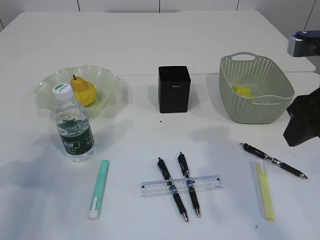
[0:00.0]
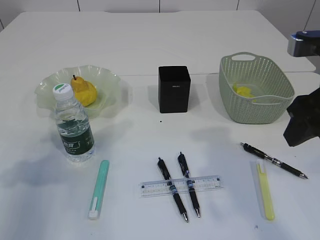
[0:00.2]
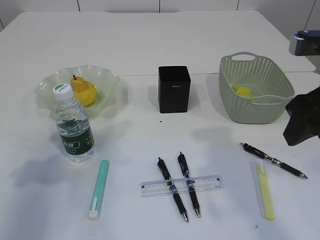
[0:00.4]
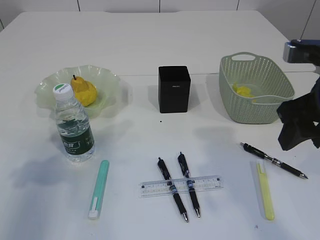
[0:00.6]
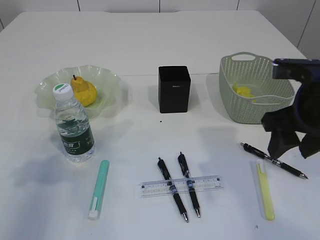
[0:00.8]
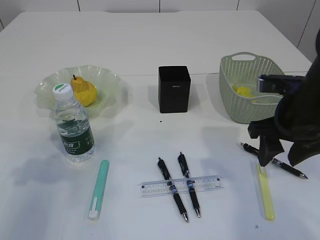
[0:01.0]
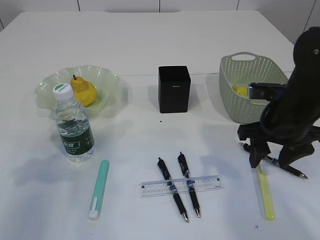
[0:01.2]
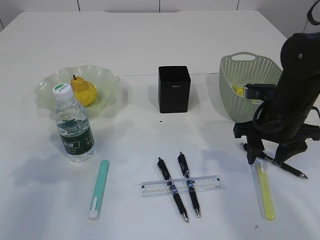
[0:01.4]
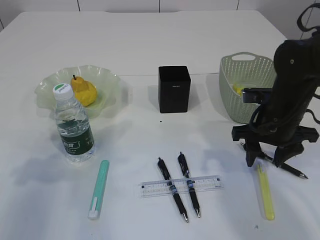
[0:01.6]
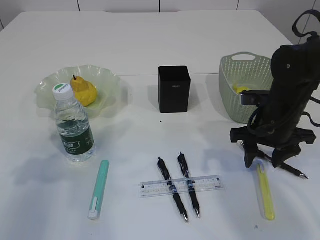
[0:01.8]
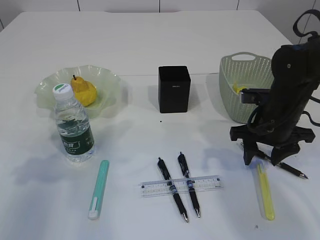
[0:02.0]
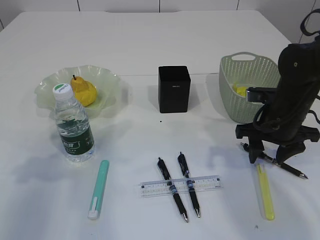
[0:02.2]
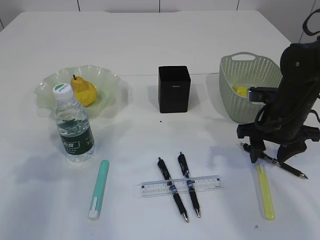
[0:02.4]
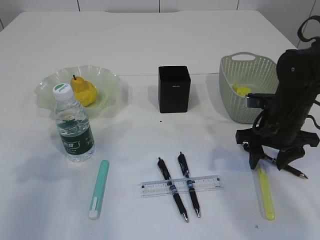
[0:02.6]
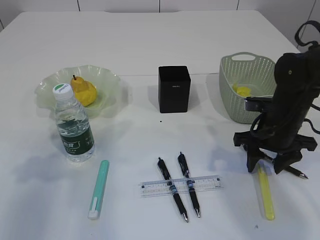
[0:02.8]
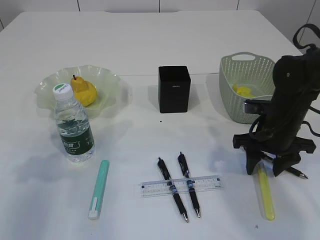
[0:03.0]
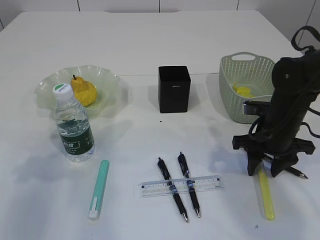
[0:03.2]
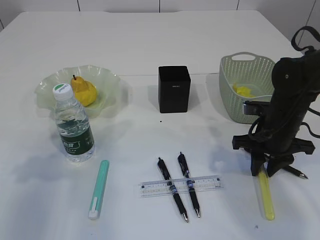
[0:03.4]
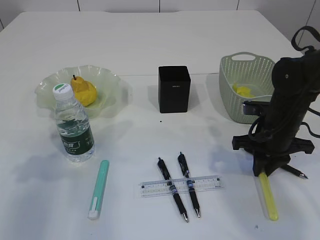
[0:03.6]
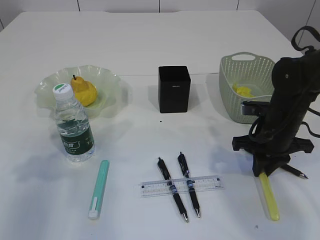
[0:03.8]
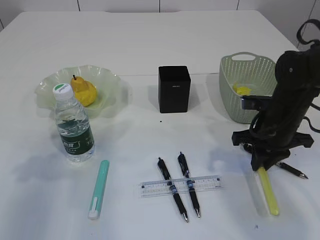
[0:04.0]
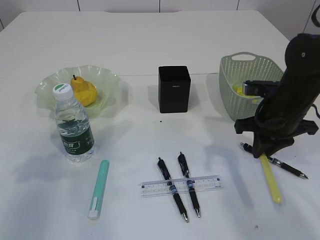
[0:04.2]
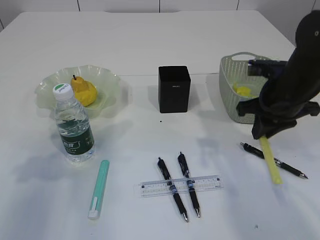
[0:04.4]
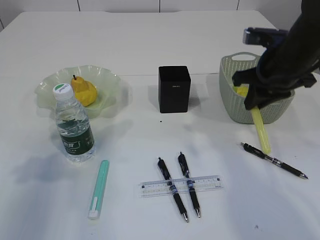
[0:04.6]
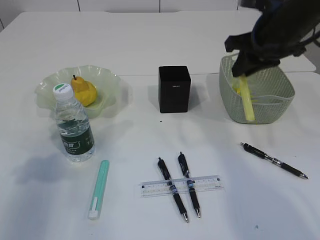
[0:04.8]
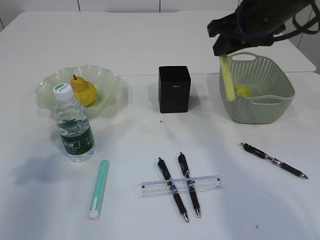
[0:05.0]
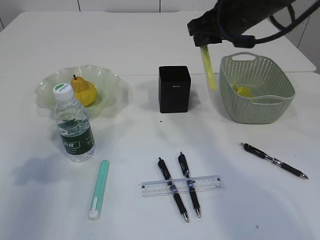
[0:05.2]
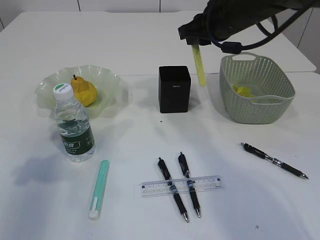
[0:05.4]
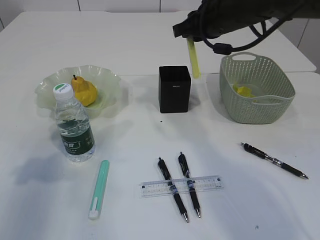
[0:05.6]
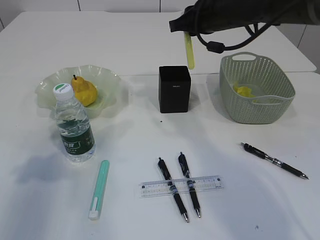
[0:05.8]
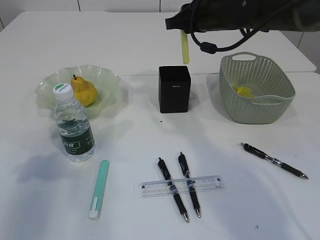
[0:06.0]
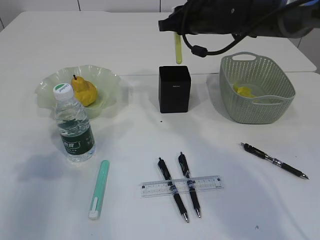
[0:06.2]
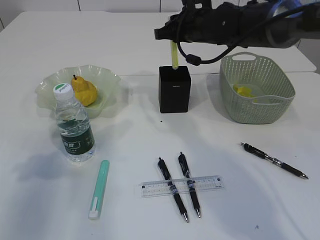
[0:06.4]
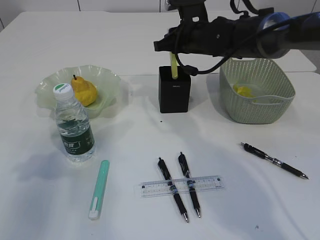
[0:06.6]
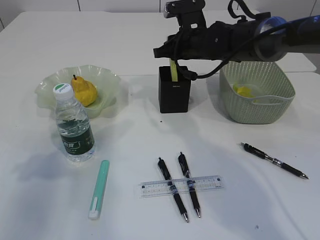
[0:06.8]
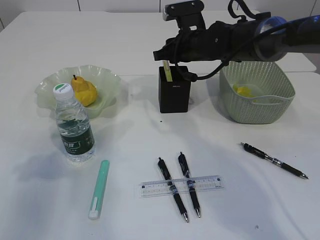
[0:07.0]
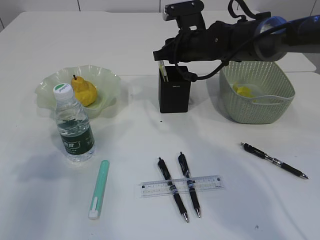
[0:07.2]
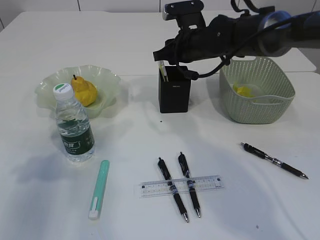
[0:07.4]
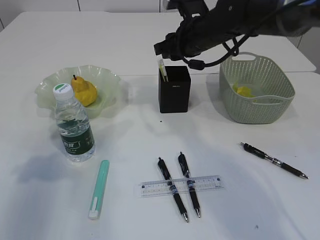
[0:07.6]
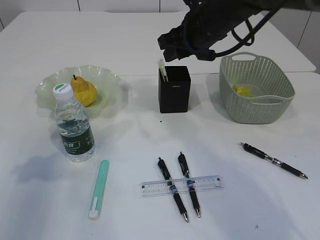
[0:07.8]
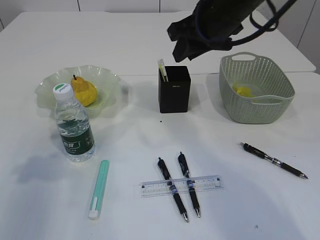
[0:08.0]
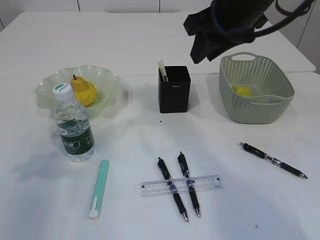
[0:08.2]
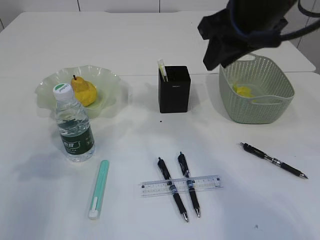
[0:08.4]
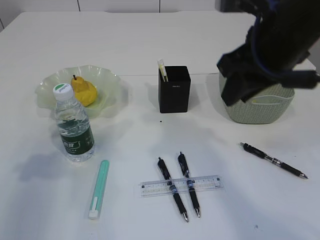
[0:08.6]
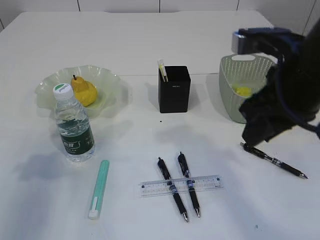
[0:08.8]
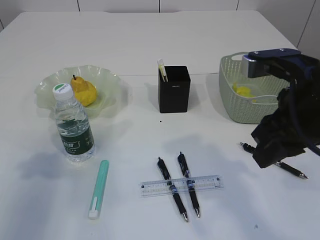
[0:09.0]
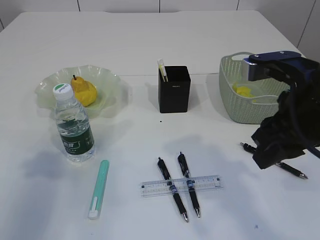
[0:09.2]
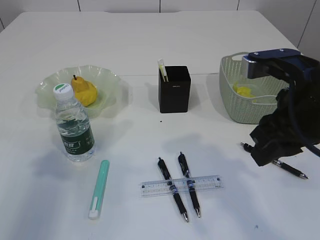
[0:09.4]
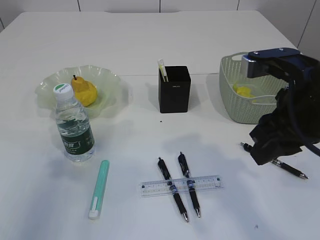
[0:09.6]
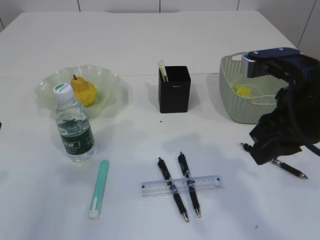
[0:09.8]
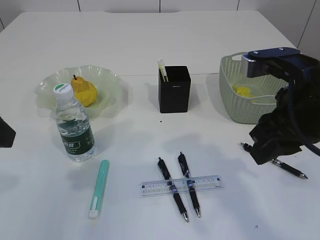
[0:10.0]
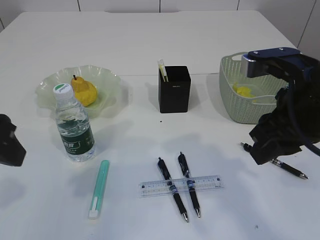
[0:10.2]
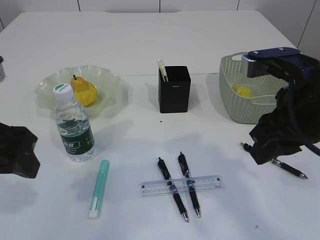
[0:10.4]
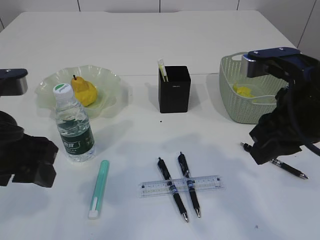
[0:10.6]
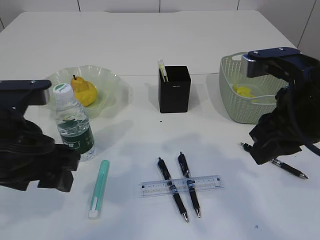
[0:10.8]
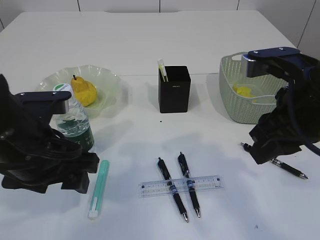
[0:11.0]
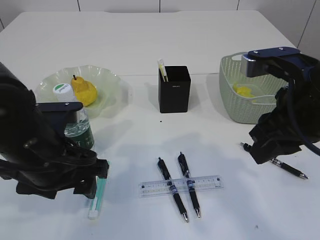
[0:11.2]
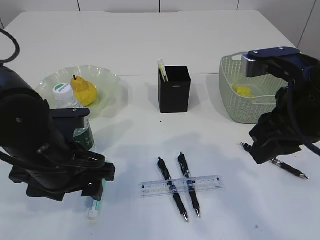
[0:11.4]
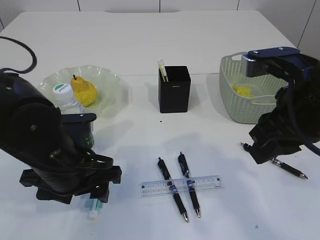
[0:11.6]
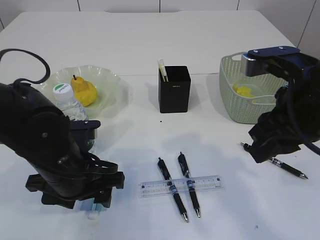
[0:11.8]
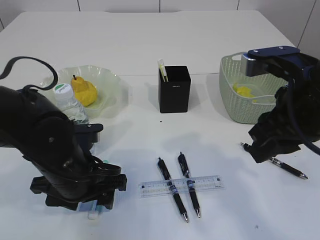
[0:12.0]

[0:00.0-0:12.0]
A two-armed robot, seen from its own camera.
Step, 0:00.0 to 0:04.2: pick up the yellow knife.
Step, 0:04.4 to 0:07.4: place the yellow knife into the pen holder.
0:00.0 to 0:01.6: The right gripper heads downward and forward, covering some 15 cm.
0:01.6 to 0:03.0: The grippers move only a little.
0:03.0 to 0:04.4: The right gripper heads upward, covering roughly 5 cm, and closes its fingers.
0:04.4 to 0:06.0: The right gripper goes some 20 cm forward, to the left and upward.
0:07.6 to 0:09.0: The right gripper travels backward by about 25 cm.
0:09.0 to 0:10.4: The left gripper shifts some 10 cm to the right.
0:10.4 to 0:12.0: The left gripper heads downward and to the right, covering some 15 cm.

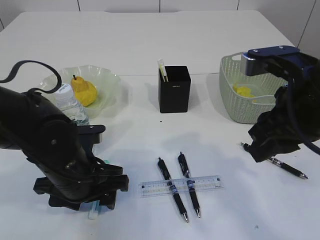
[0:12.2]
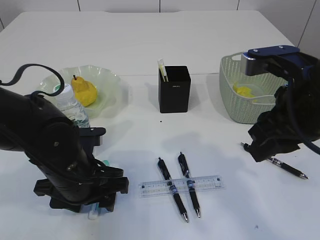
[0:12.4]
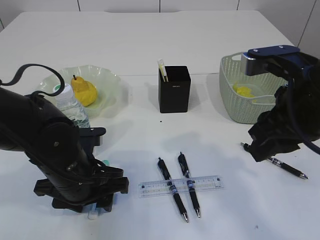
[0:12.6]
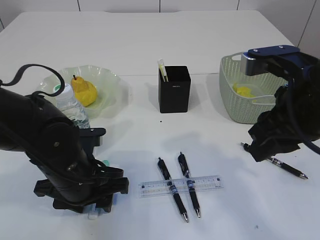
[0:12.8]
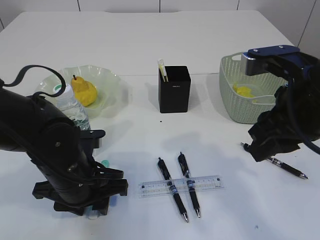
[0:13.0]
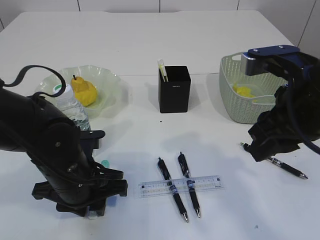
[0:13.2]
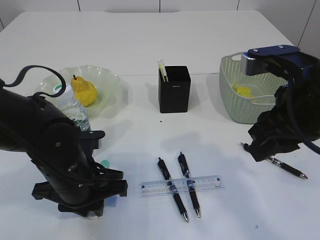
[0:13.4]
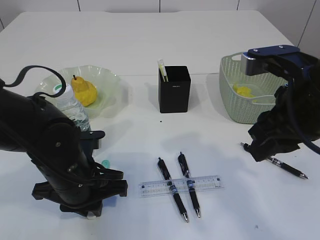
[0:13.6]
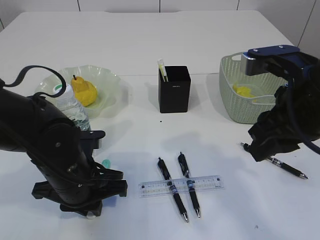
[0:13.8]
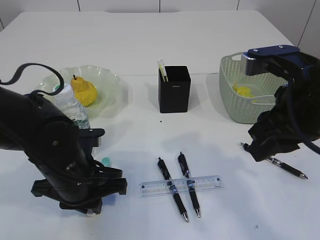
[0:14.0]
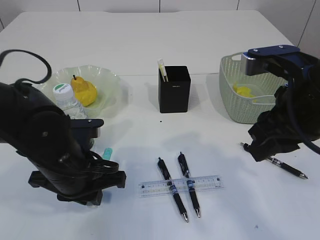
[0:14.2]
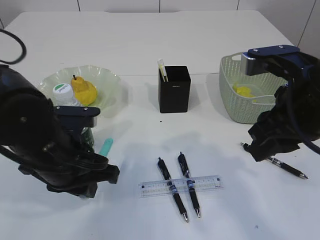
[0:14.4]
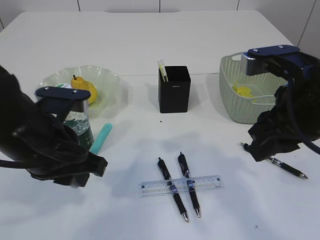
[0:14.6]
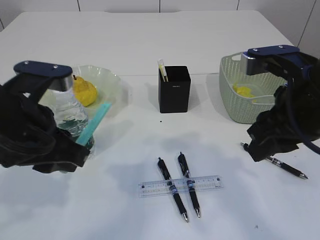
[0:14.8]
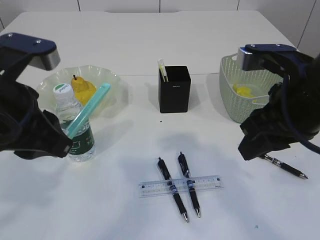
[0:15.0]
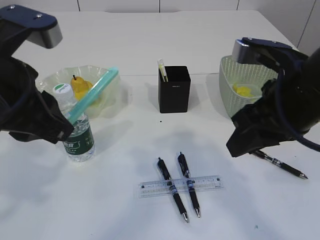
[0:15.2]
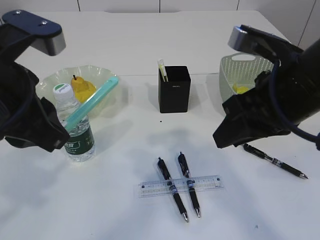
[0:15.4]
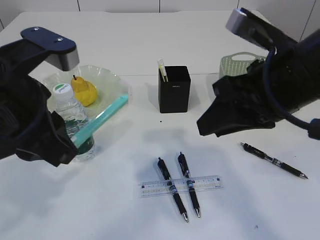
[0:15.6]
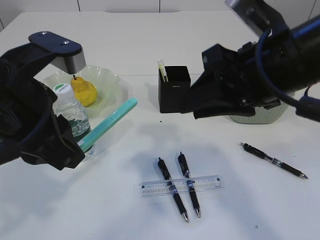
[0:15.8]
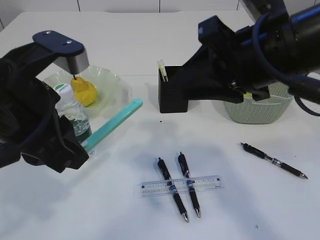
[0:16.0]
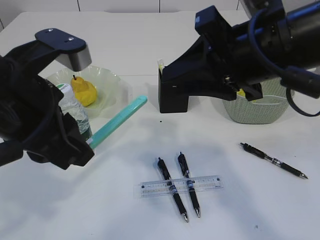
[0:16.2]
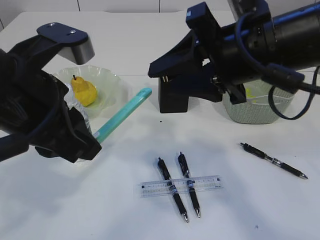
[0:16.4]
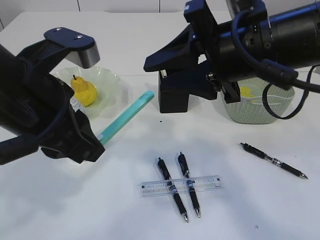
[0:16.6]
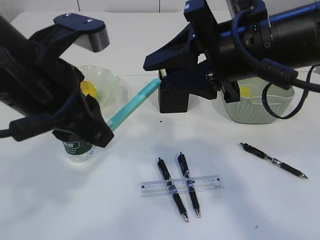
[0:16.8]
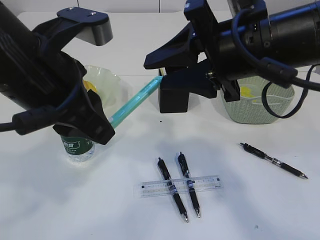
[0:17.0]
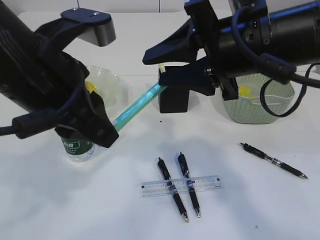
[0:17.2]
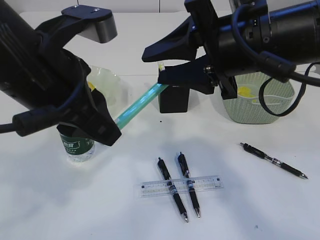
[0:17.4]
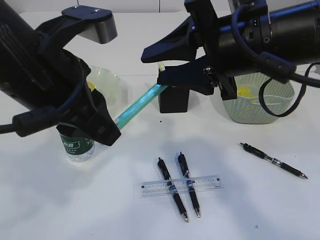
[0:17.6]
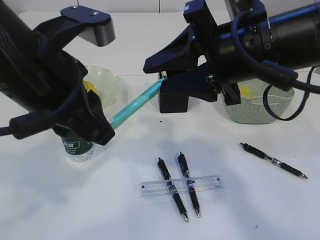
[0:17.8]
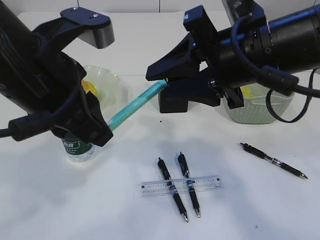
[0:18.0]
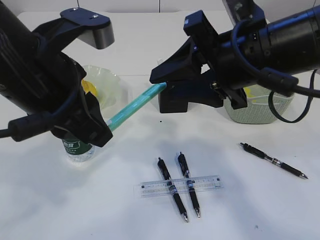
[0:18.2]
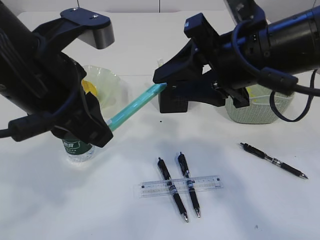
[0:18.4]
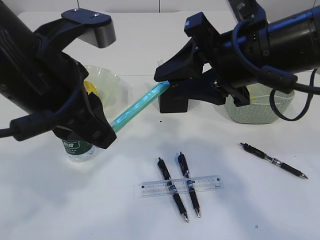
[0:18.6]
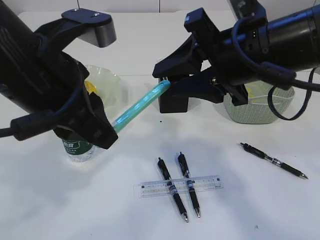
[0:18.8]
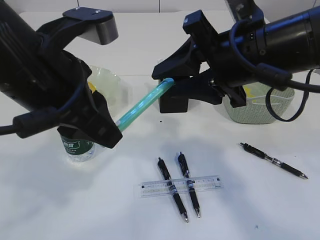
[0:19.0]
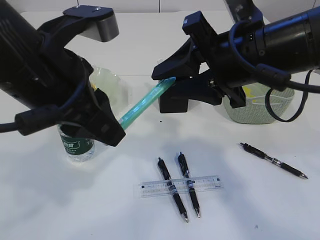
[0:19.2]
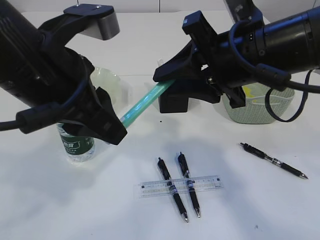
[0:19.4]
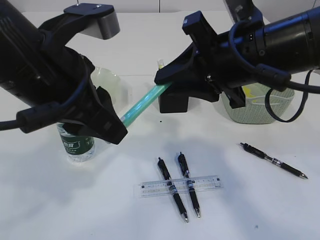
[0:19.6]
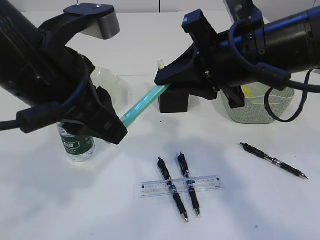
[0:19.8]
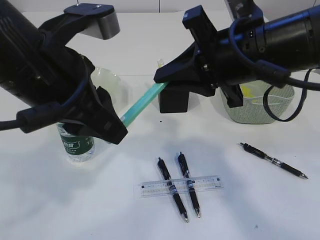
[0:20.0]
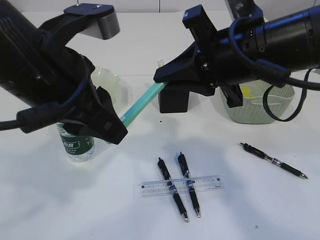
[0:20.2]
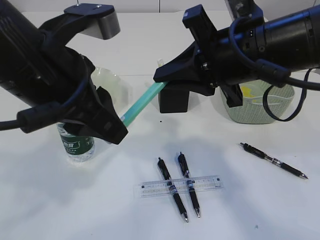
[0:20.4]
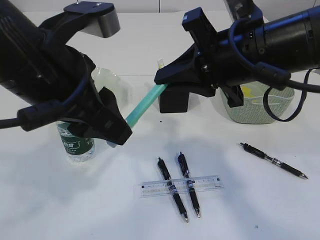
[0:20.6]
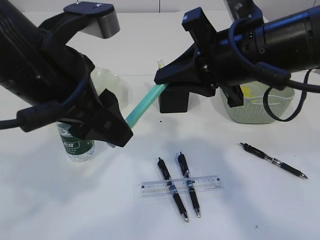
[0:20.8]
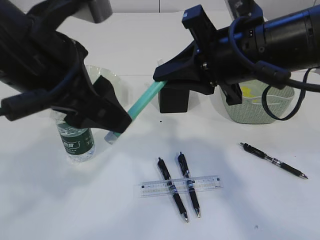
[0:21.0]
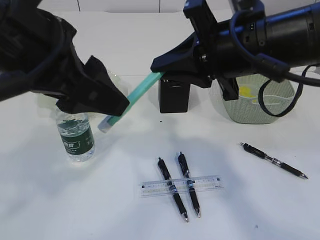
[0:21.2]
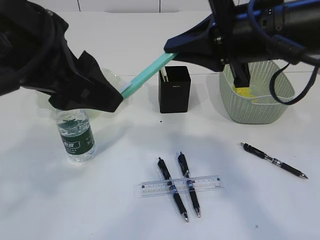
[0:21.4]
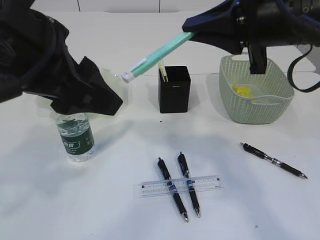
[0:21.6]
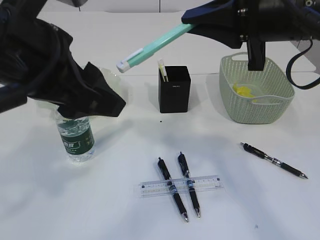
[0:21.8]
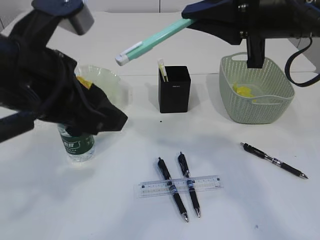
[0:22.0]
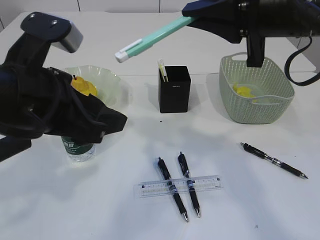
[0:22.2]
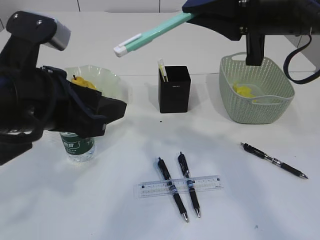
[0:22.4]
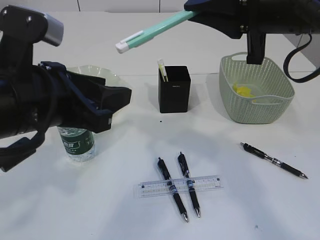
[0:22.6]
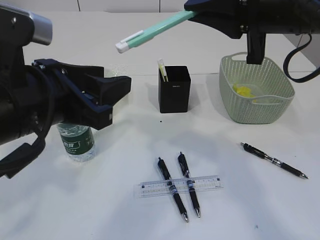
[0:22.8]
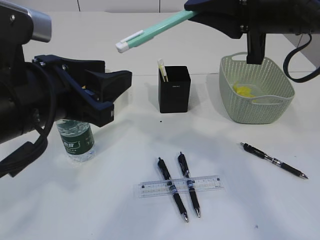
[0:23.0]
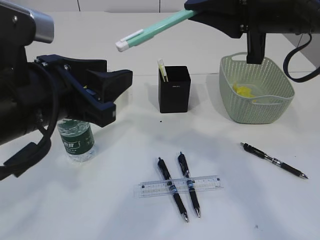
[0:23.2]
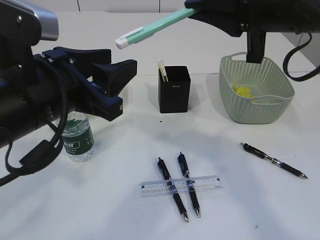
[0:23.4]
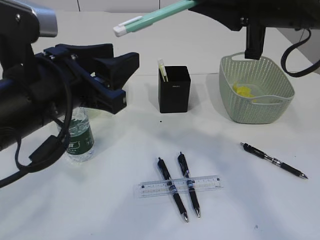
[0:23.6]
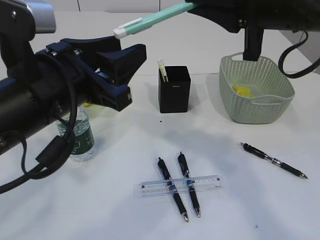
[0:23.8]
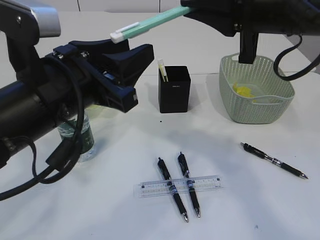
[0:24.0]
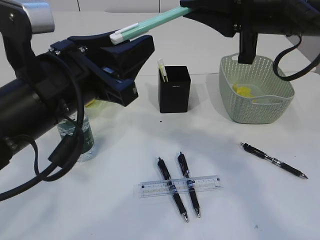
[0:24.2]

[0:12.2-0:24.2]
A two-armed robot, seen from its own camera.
Step, 0:12.2 to 0:14.2: pick up the blue knife.
0:12.2 to 0:13.8: The left gripper closes up.
0:13.8 to 0:15.2: The left gripper travels upward by about 20 cm.
0:15.2 to 0:16.6: The right gripper changes place by roughly 5 cm.
0:18.2 to 0:19.8: The right gripper closes up.
0:19.8 to 0:21.2: The left gripper opens up.
0:21.2 to 0:22.6: The right gripper shifts by about 5 cm; the left gripper heads downward, covering some 5 cm.
